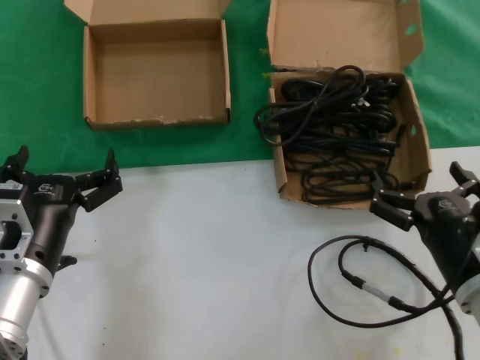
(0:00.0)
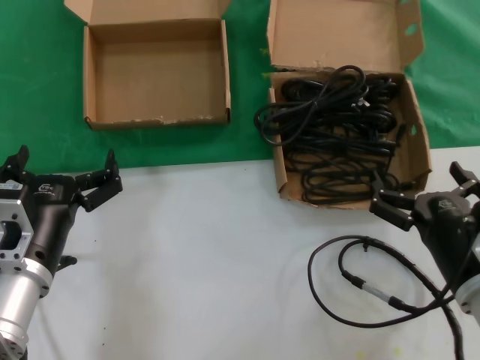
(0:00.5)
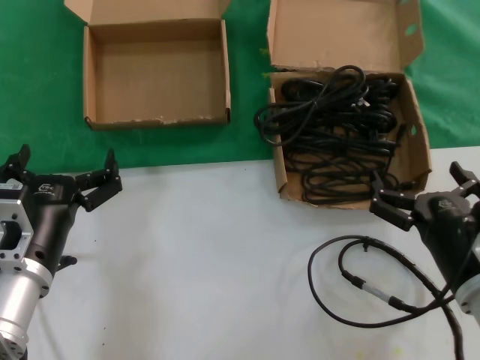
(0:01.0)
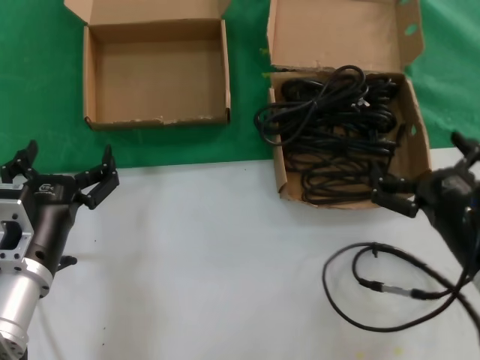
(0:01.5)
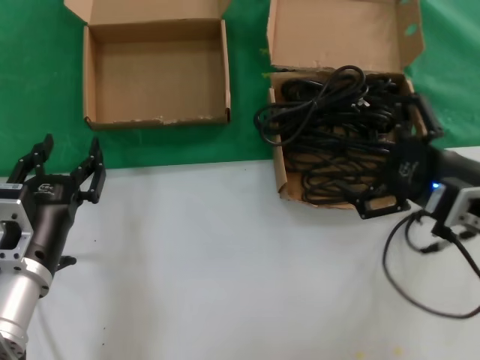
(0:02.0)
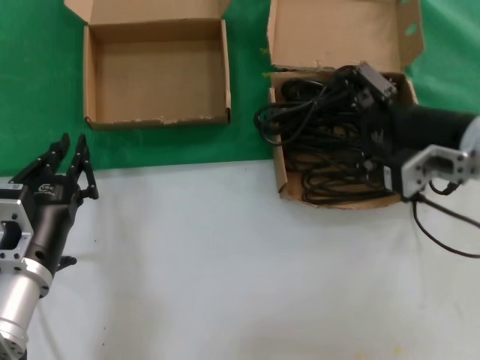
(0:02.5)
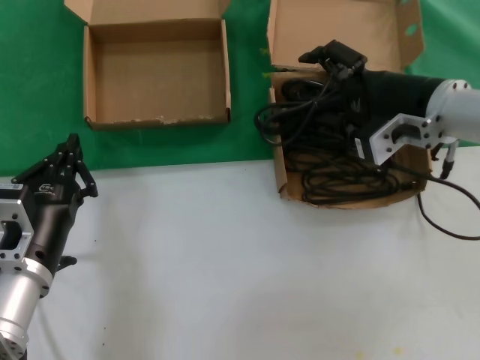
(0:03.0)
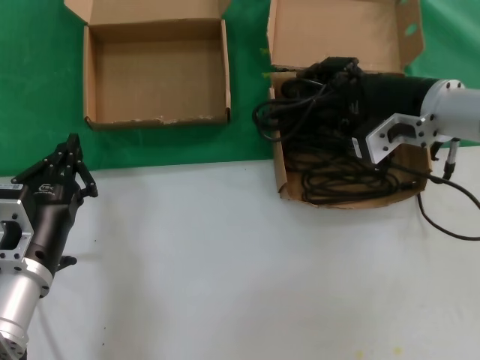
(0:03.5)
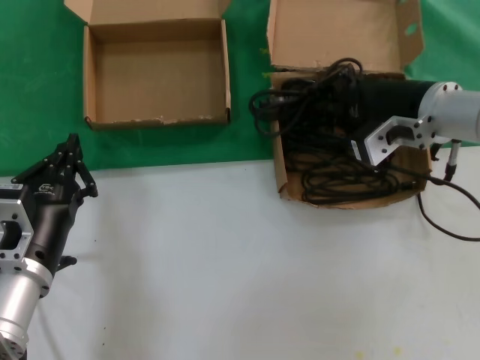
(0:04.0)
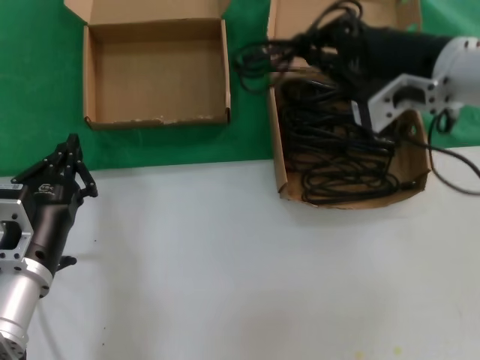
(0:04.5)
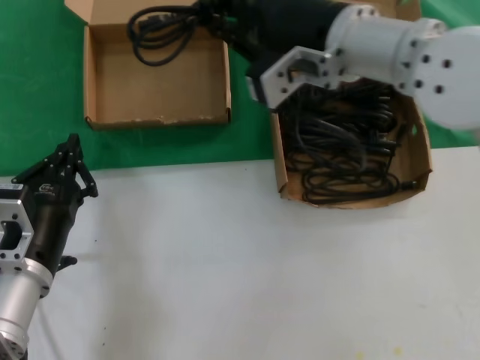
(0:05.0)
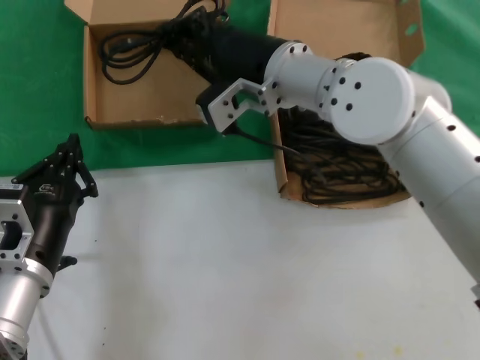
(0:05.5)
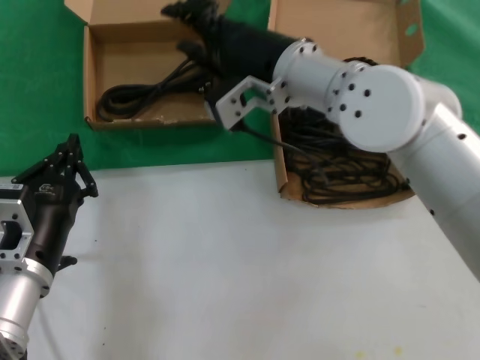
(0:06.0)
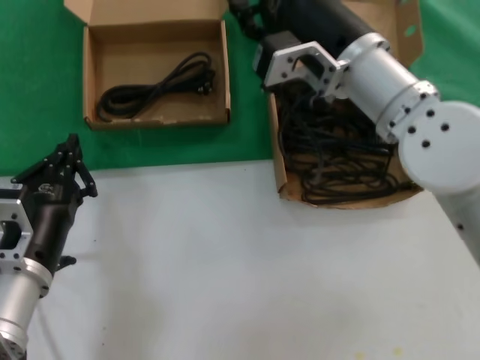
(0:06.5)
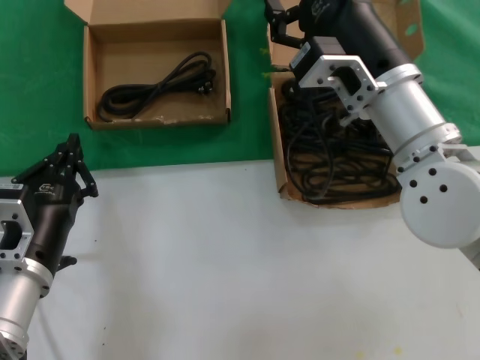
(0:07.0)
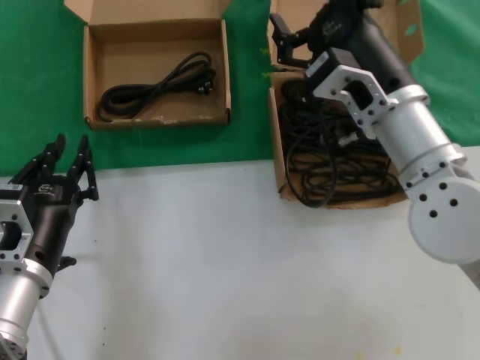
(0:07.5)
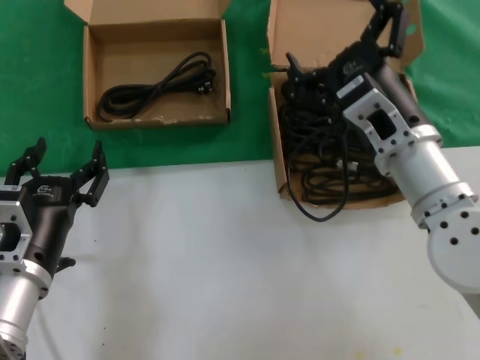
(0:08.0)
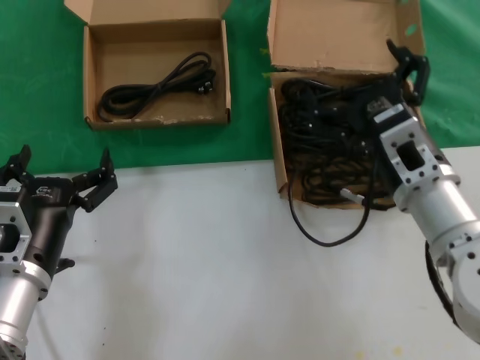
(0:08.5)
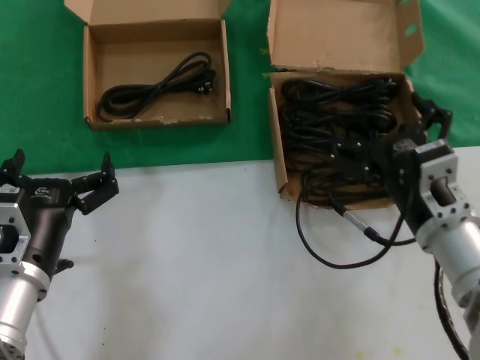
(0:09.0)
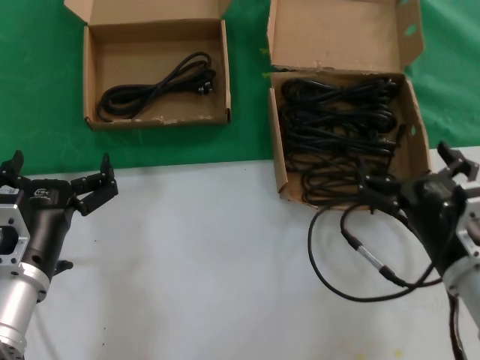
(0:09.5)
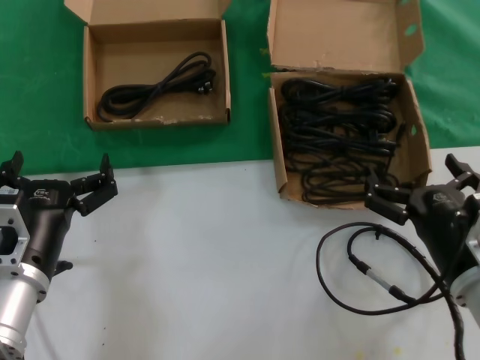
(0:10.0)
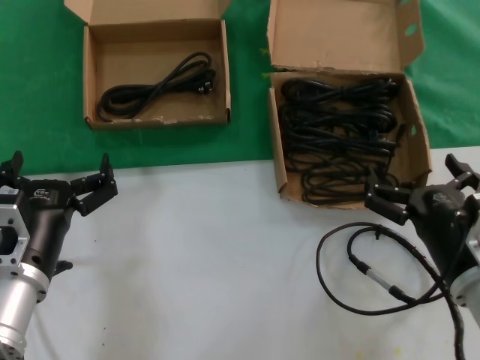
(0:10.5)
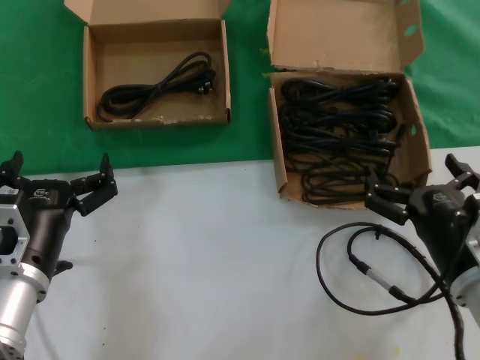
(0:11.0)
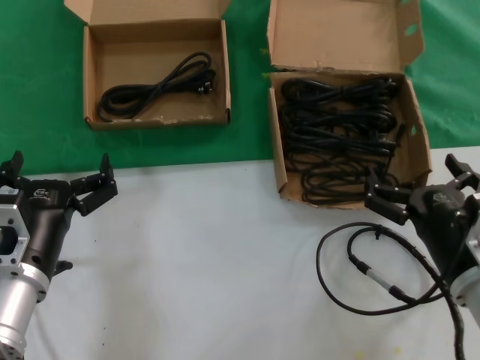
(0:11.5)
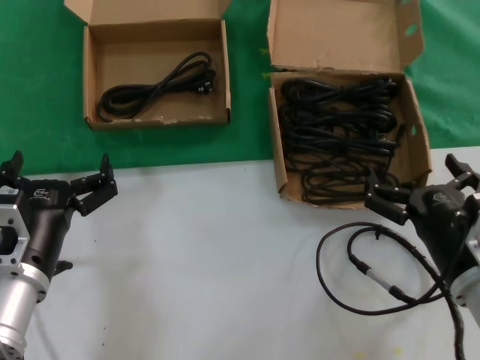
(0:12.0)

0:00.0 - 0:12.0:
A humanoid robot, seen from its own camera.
Task of the whole recording: take the parts from the box containing them and put them into an empty box.
Step, 0:00.0 - 0:03.5: Grasp the data cable.
Step, 0:04.0 - 0:05.5: Place the data cable in the another box.
0:00.0 - 0:02.0: The right hand travels upward by roughly 10 cm.
0:02.0 - 0:04.0: The right hand shifts about 15 cm forward and upward.
0:04.0 - 0:06.0: The right hand moves to the left, roughly 15 cm.
0:06.0 - 0:08.0: The right hand moves to the right, backward and downward, approximately 15 cm.
0:08.0 - 0:10.0: The right hand travels downward, backward and to the right by approximately 15 cm.
0:10.0 - 0:12.0: Both hands stay put.

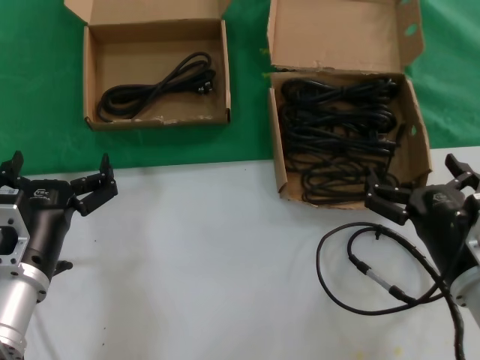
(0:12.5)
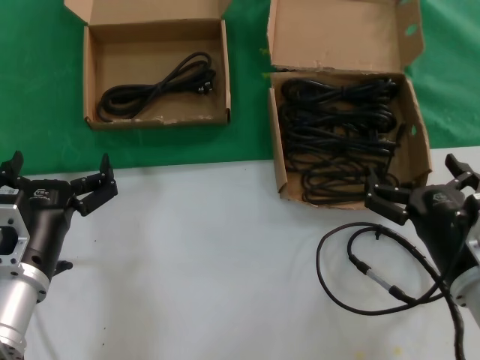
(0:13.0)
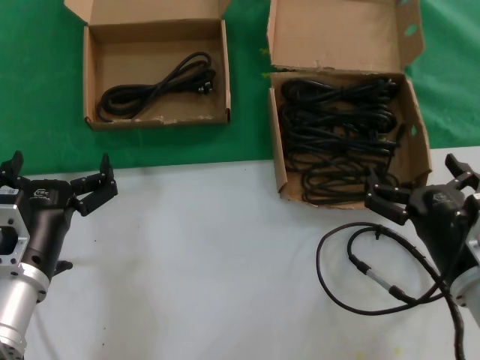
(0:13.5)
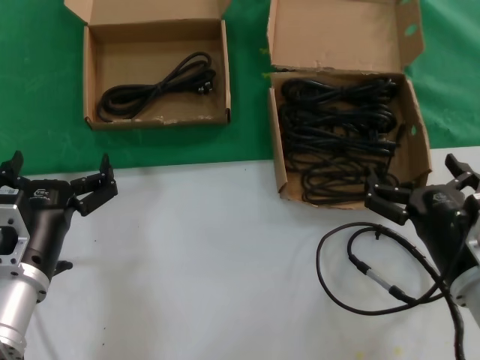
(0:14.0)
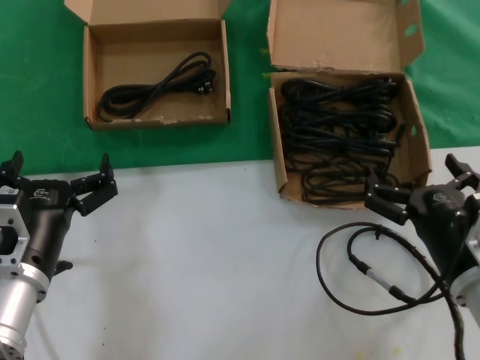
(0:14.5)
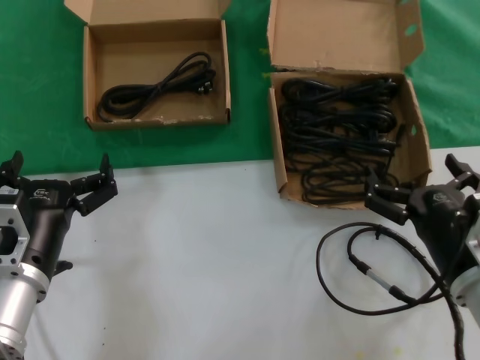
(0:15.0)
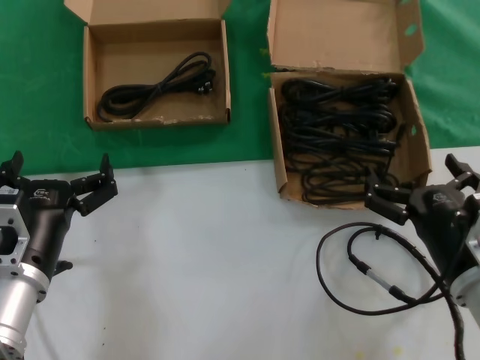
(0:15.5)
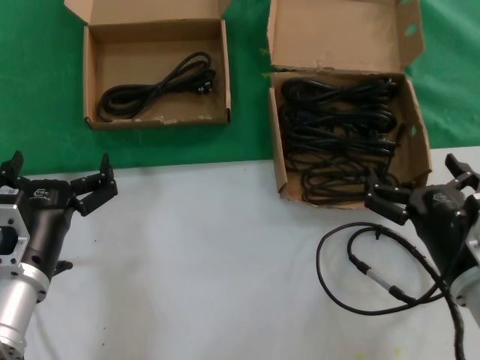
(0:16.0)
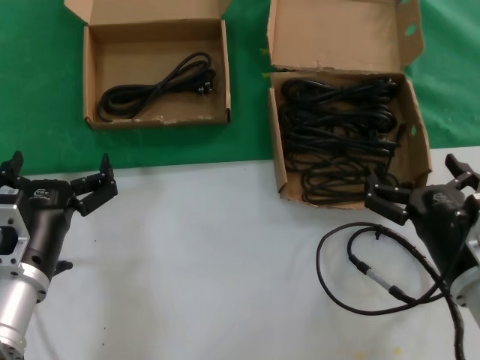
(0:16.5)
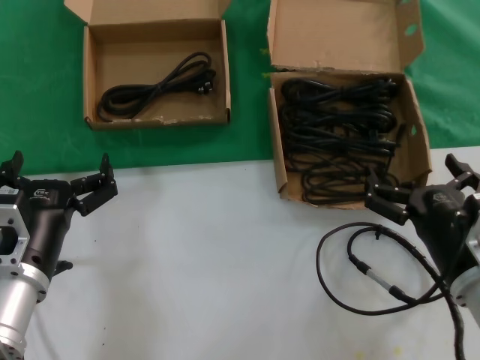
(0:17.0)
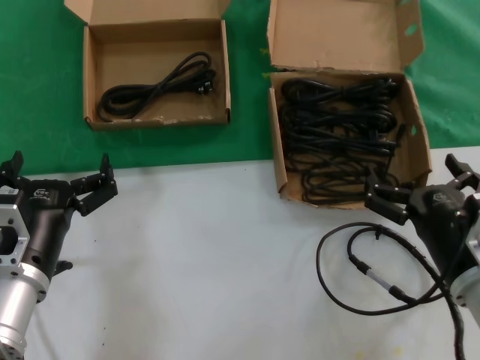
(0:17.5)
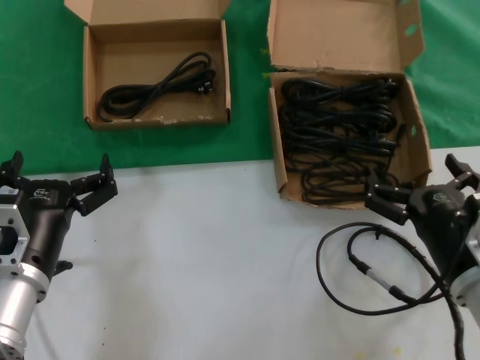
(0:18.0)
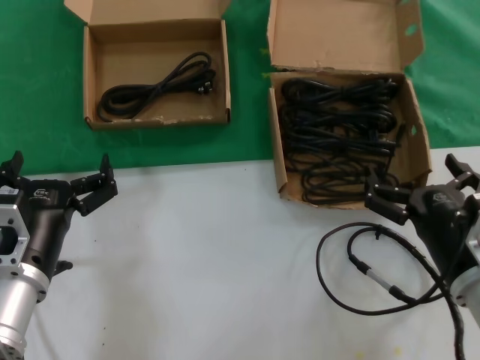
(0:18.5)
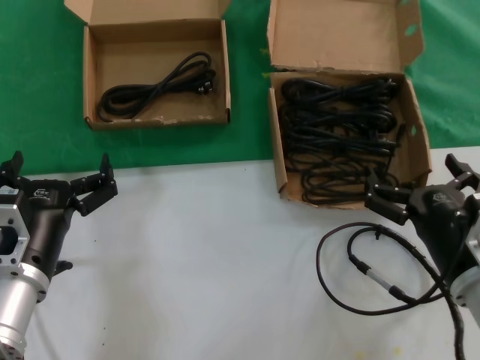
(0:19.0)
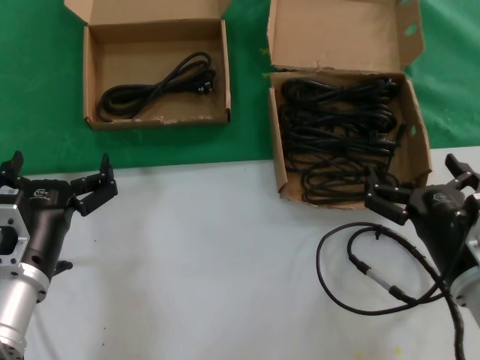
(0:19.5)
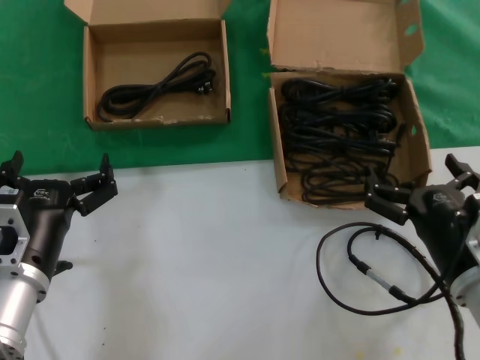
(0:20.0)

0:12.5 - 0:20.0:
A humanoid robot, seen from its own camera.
Task of the whole recording: take the parts from the box containing them and put them into an empty box.
0:12.5 - 0:20.0: The two hands keep their place.

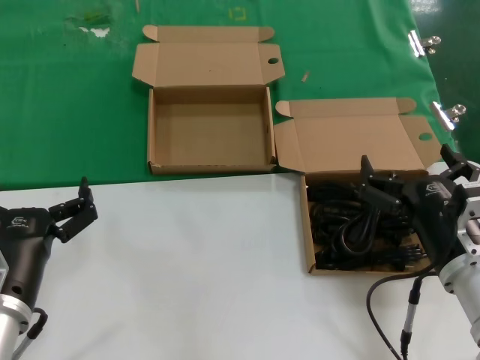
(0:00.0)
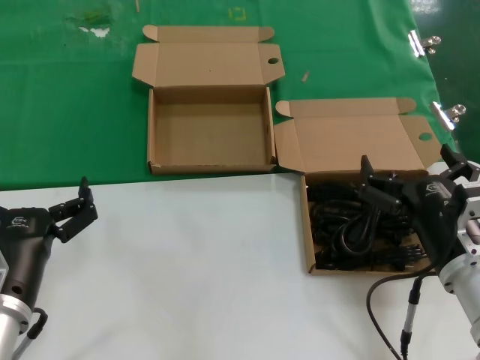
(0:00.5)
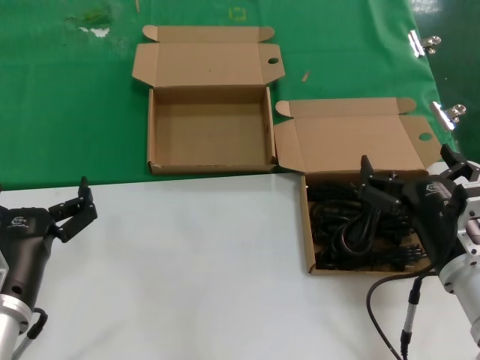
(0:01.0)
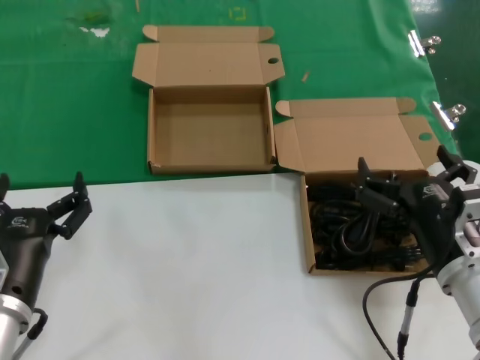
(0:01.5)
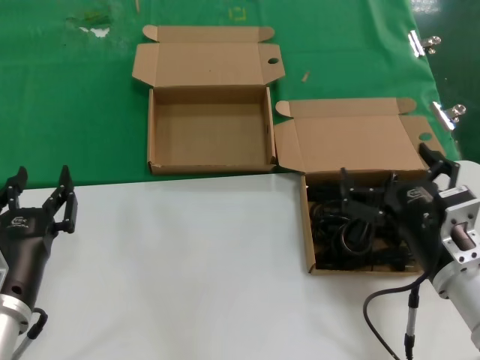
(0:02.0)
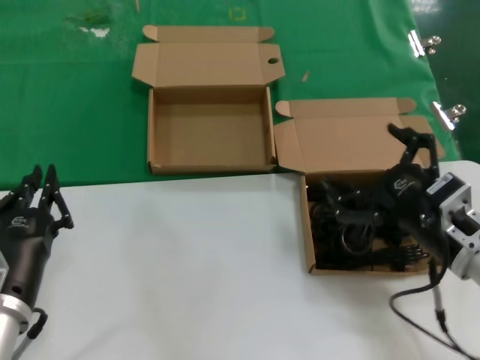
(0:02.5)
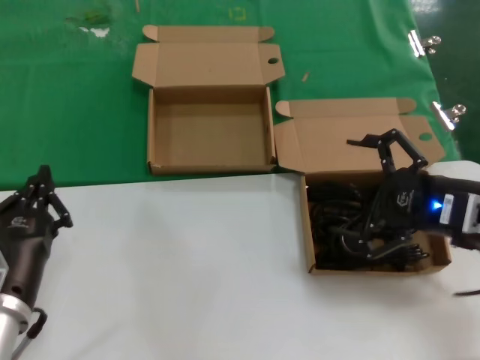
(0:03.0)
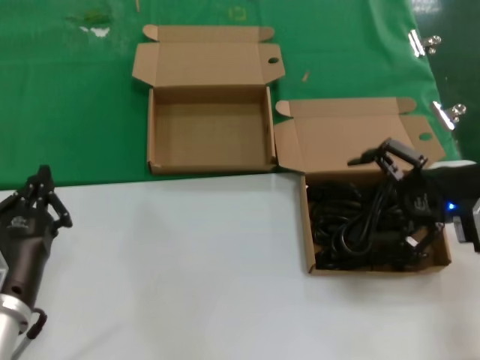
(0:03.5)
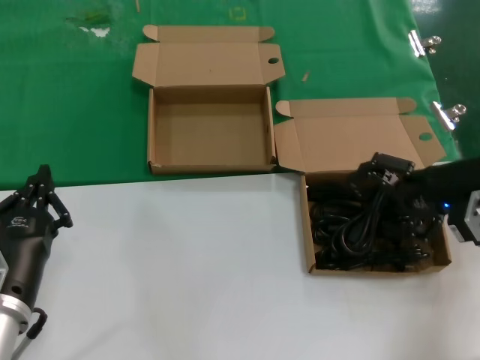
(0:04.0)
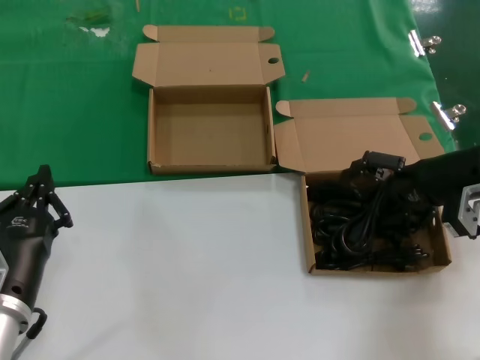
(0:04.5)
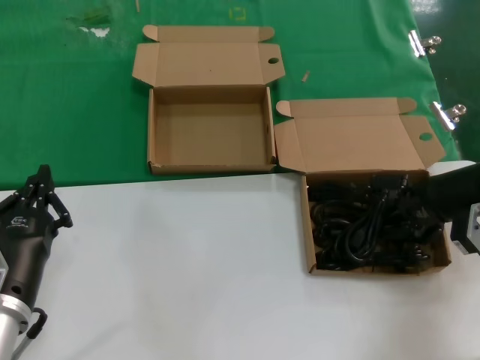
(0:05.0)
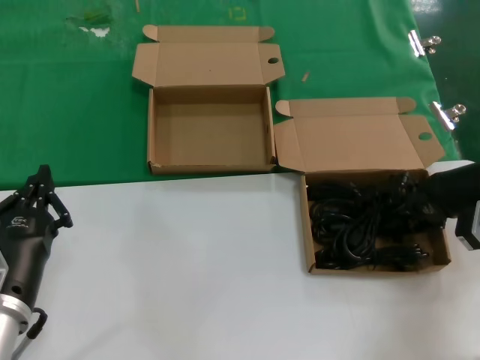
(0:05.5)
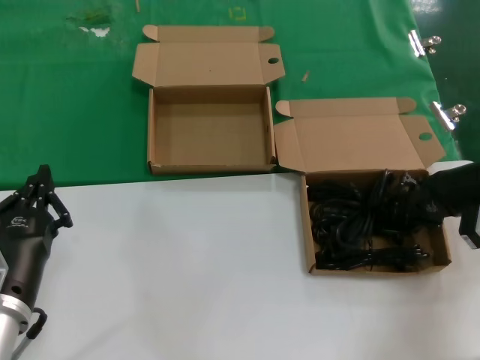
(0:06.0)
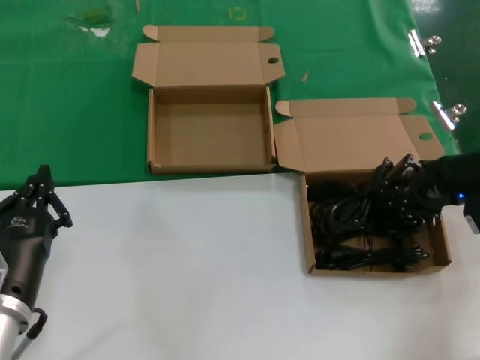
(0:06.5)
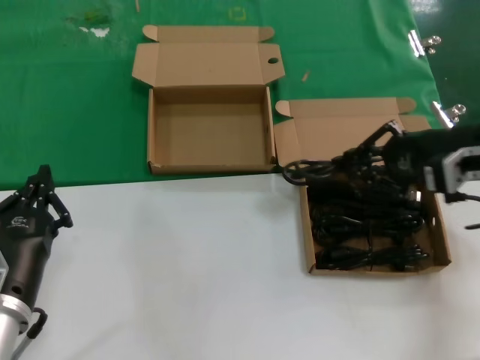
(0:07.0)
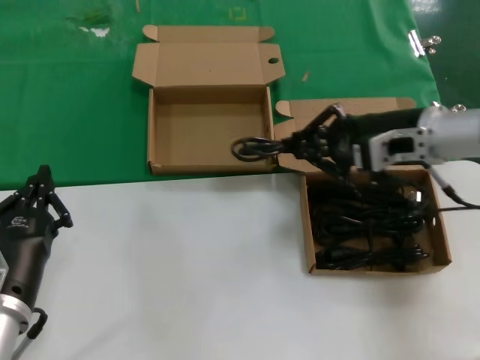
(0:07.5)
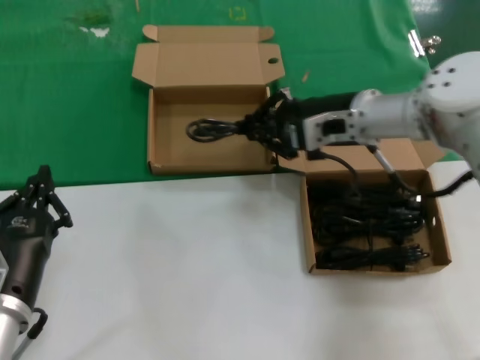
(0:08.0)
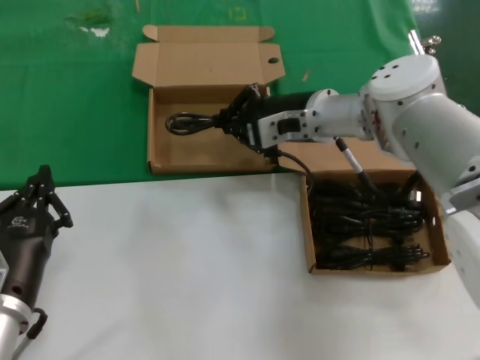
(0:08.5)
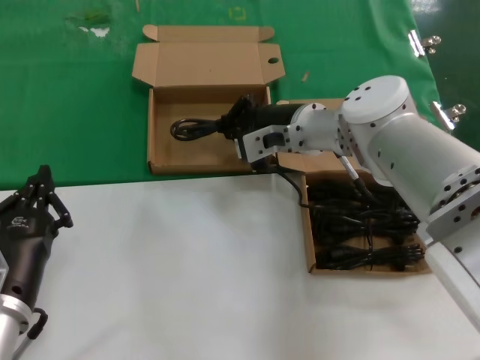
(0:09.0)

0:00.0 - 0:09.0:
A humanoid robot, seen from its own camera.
Task of the whole recording: take the parts from the box containing them and put them into an empty box.
Step, 0:00.0 - 0:05.5: Grasp the data cable.
0:00.0 - 0:02.0: The hands make only small movements.
0:02.0 - 0:04.5: The right hand moves forward, to the right and upward, roughly 25 cm.
0:04.5 - 0:07.0: The right hand moves approximately 5 cm.
0:07.0 - 0:09.0: The right hand is displaced to the left and forward by some 25 cm.
